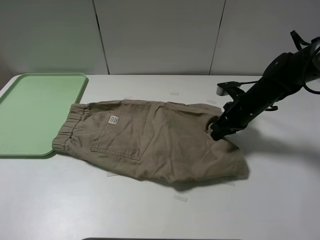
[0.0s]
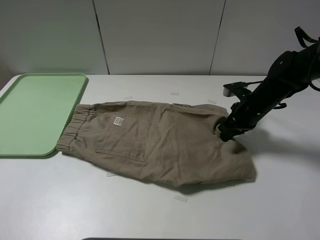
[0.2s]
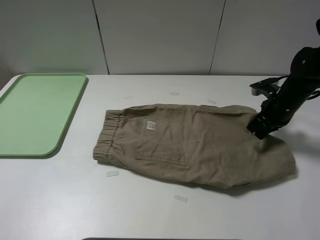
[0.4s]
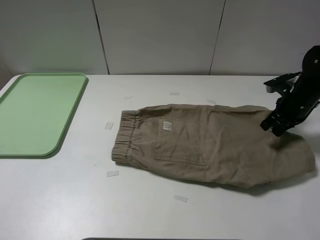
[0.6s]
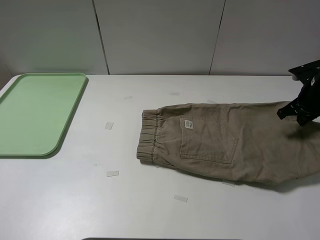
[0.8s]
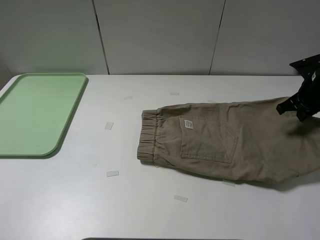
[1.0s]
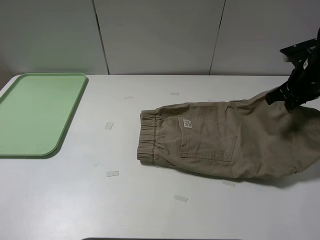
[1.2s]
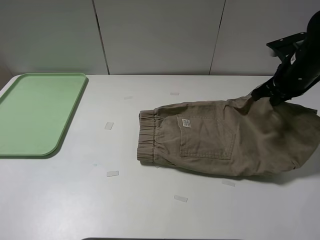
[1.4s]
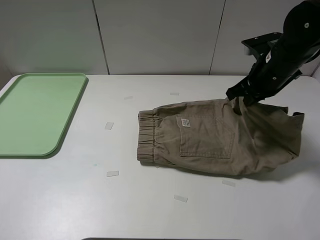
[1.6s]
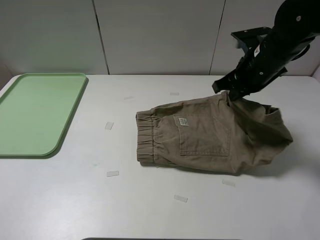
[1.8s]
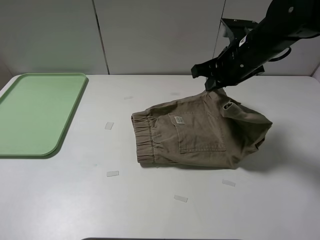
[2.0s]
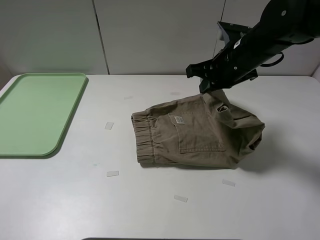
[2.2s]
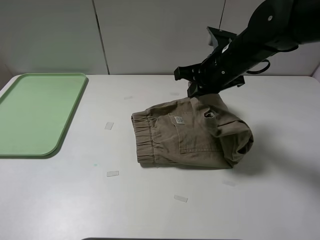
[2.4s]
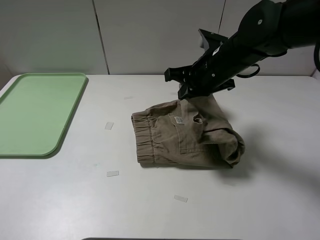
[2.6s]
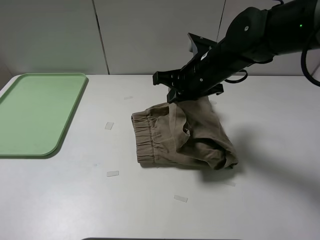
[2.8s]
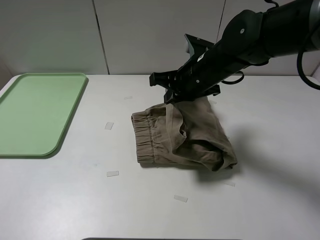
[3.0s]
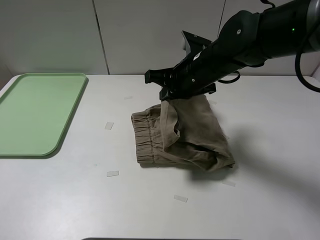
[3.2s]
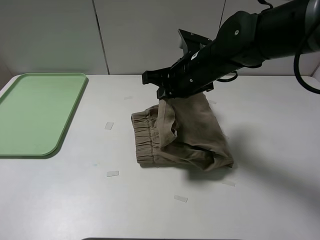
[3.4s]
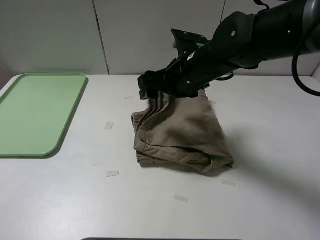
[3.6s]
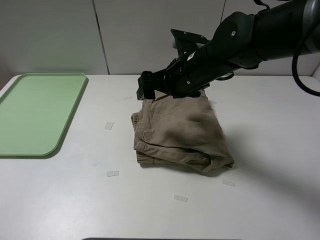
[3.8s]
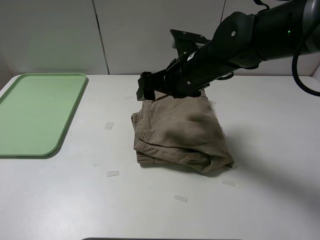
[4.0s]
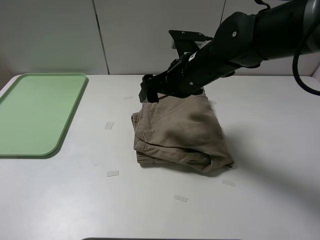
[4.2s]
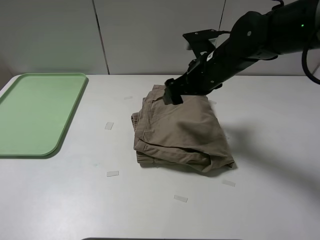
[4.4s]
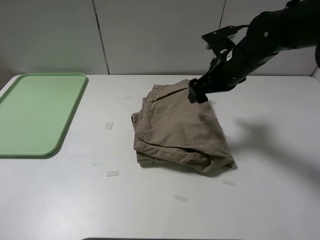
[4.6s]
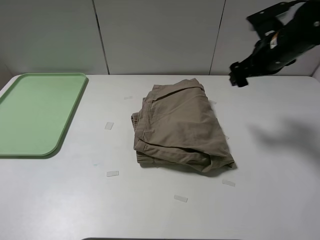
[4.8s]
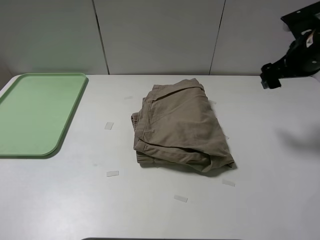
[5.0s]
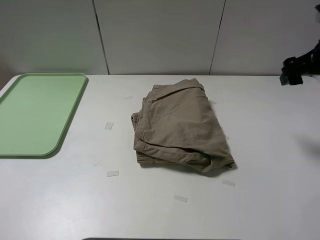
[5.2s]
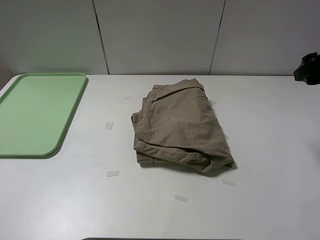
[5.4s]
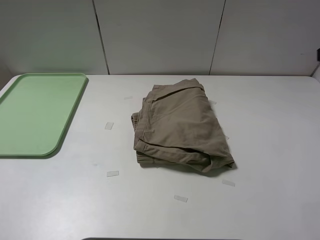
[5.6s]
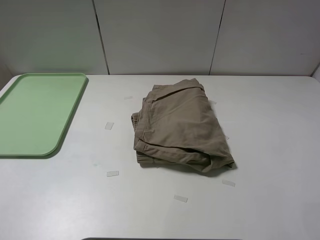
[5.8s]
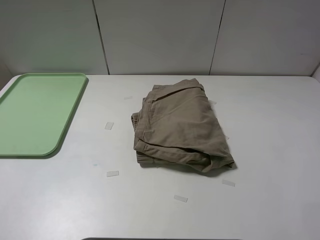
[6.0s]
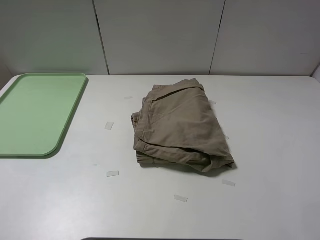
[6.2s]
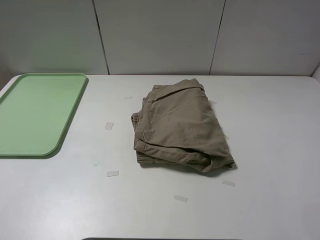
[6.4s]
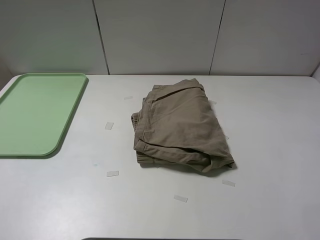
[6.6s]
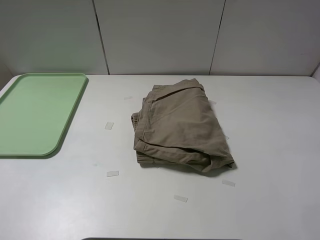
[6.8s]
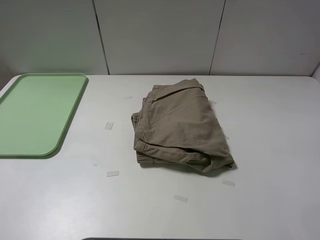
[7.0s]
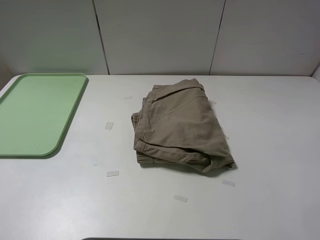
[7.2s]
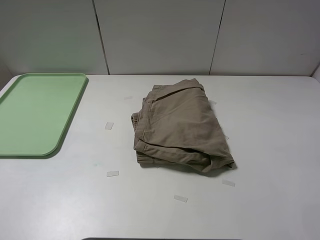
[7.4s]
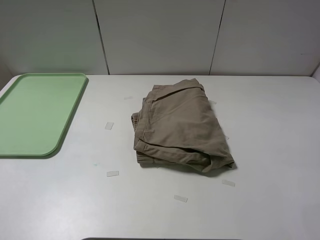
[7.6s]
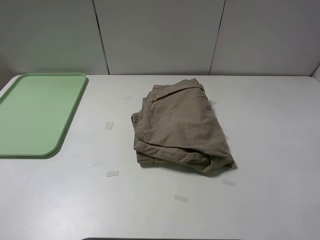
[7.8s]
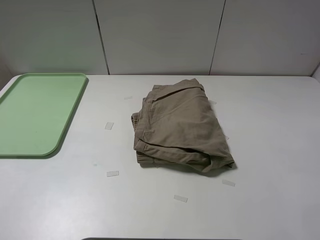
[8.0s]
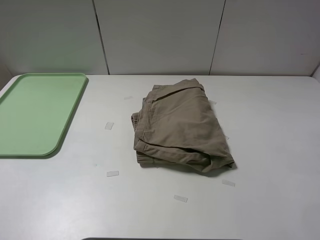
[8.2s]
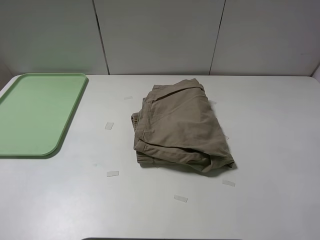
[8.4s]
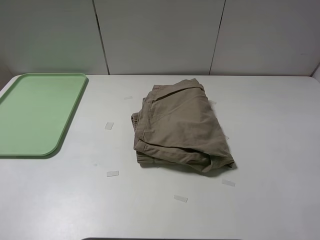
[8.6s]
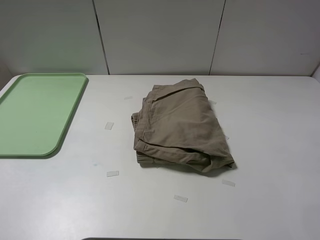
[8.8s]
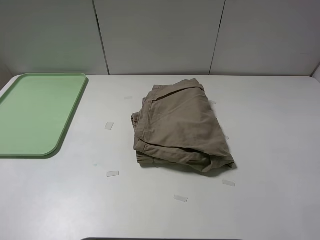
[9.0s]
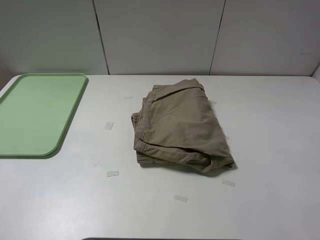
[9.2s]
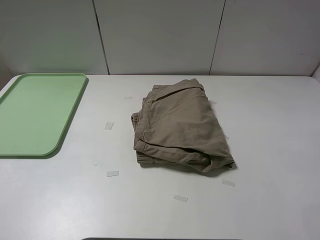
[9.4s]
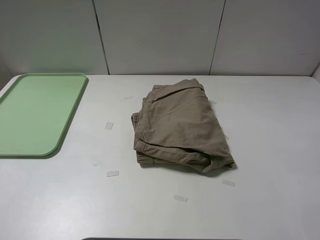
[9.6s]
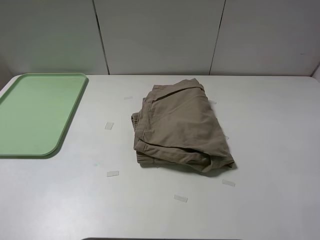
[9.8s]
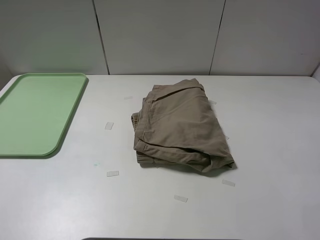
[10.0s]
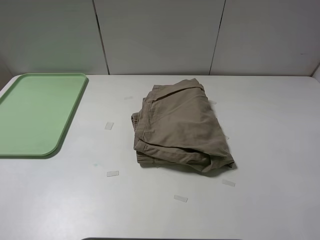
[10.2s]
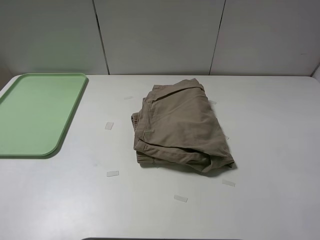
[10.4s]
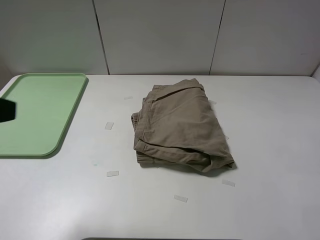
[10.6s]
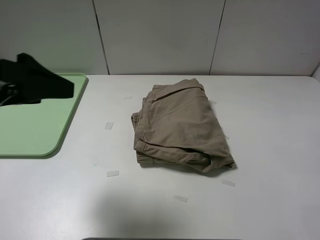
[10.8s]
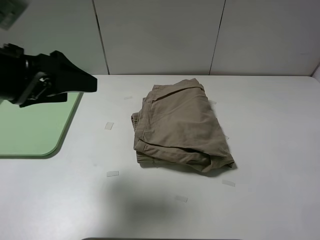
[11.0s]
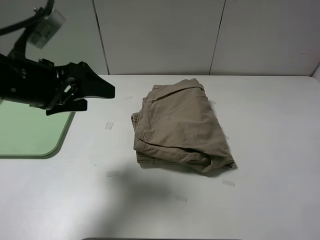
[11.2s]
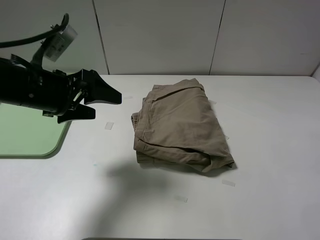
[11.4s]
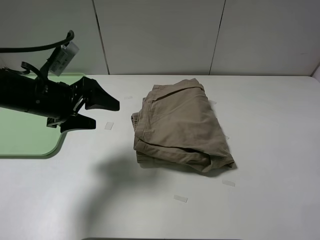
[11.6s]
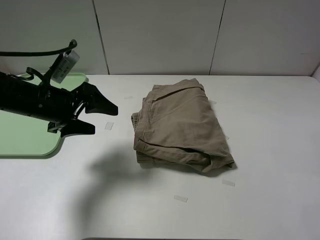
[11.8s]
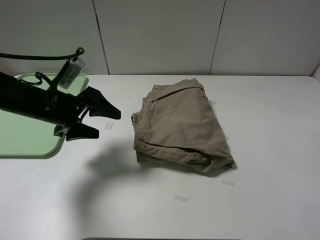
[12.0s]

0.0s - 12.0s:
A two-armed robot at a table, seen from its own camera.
Task of the whole recording: fold the khaki jeans in half with two grippers, then fold them in half again, and use the left claw to place the folded fold khaki jeans on the tray.
Step, 0.0s - 3.8s: Fold the khaki trousers from right to left with the right gripper.
0.0s - 1.6s: The right gripper is displaced upward by about 10 cm, and moves some 15 cm to the right and comes back.
1.6s - 3.0s: The right gripper heads to the left, covering approximately 15 cm.
3.0s - 4.4s: The right gripper opens up.
4.4s - 6.0s: The right gripper travels backward, to the right and upward by some 35 cm.
7.6s - 9.0s: Both grippers stay about where they are.
10.4s - 12.0s: The left gripper is displaced forward and downward by roughly 25 cm.

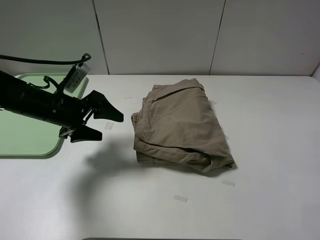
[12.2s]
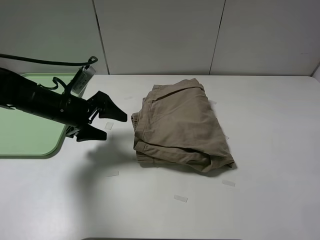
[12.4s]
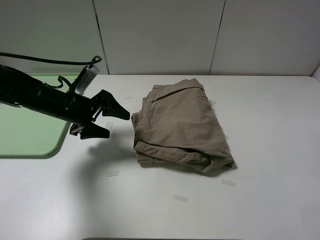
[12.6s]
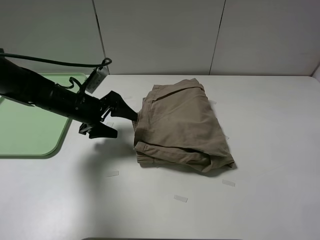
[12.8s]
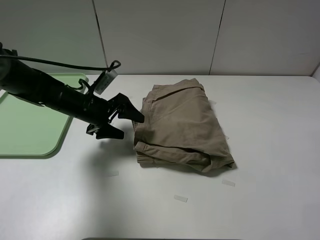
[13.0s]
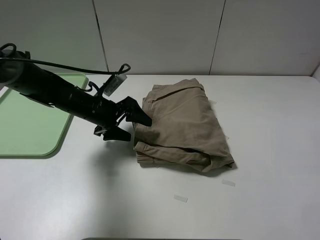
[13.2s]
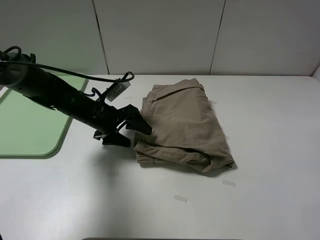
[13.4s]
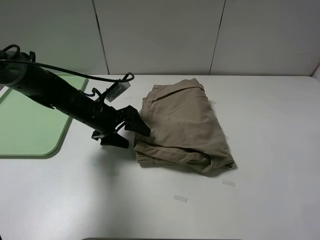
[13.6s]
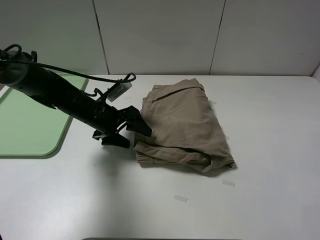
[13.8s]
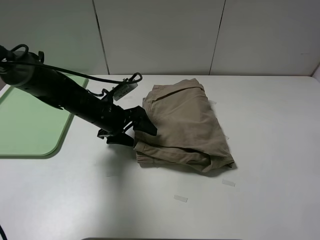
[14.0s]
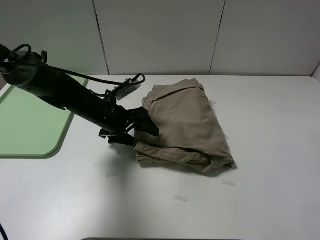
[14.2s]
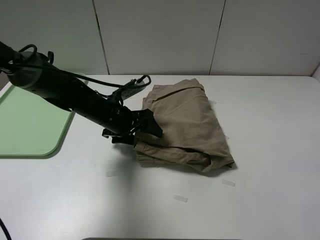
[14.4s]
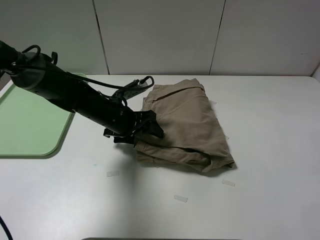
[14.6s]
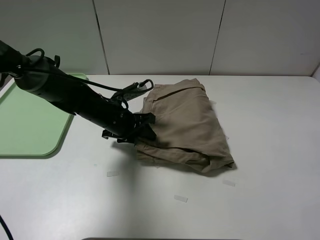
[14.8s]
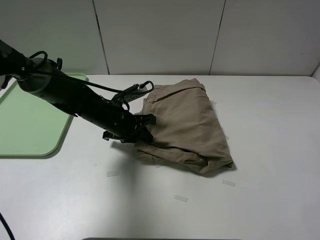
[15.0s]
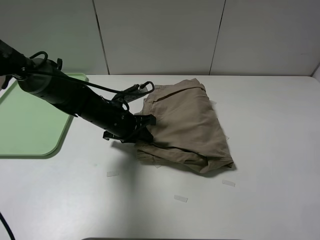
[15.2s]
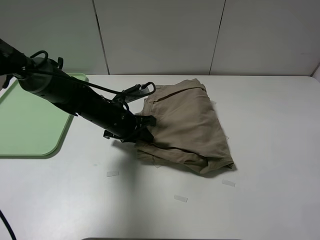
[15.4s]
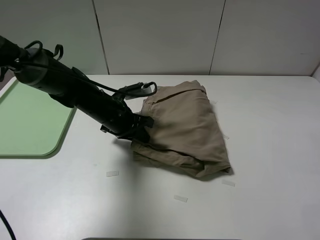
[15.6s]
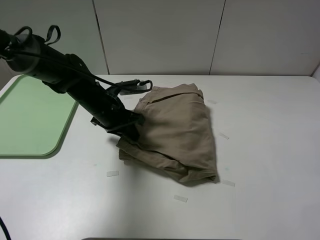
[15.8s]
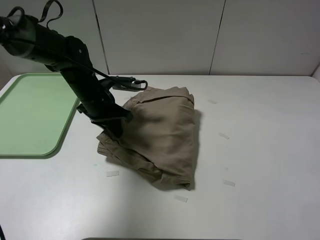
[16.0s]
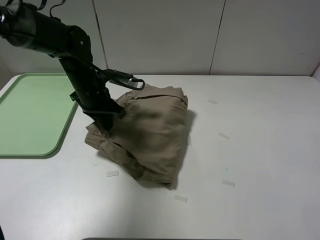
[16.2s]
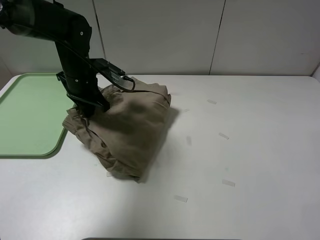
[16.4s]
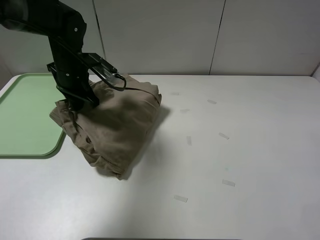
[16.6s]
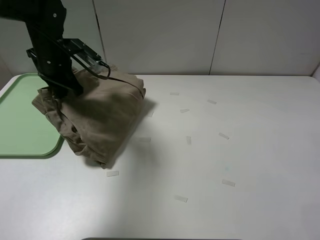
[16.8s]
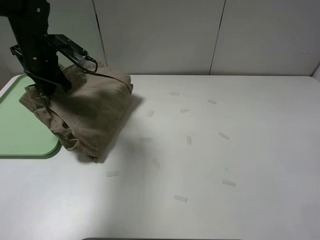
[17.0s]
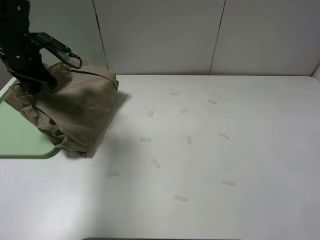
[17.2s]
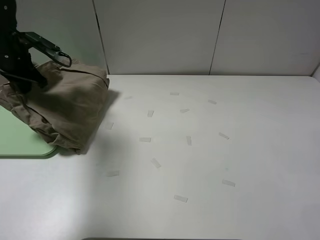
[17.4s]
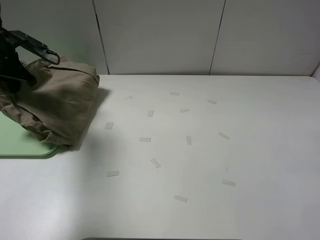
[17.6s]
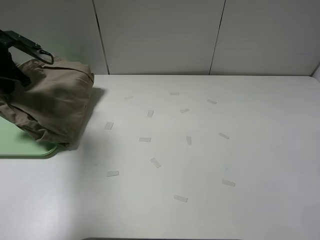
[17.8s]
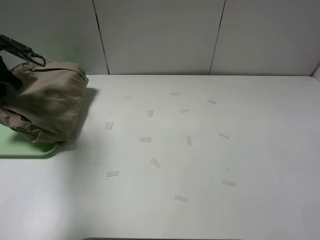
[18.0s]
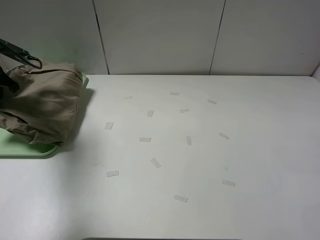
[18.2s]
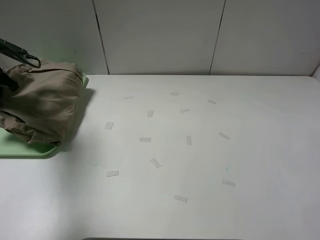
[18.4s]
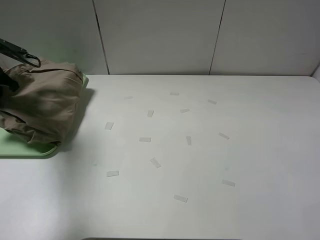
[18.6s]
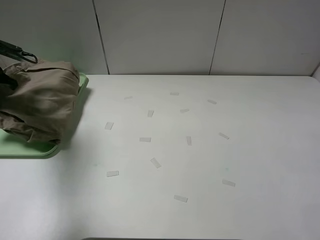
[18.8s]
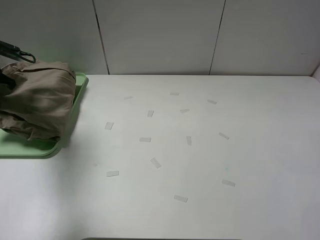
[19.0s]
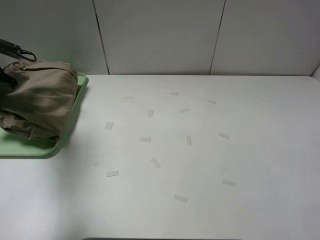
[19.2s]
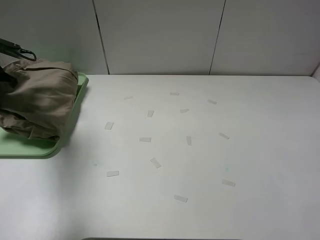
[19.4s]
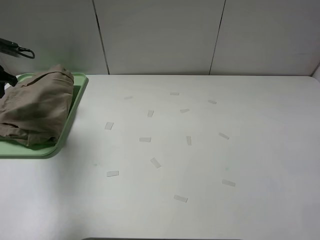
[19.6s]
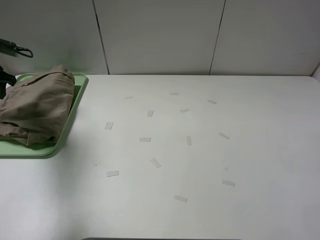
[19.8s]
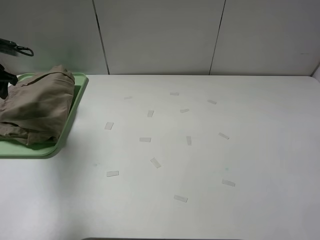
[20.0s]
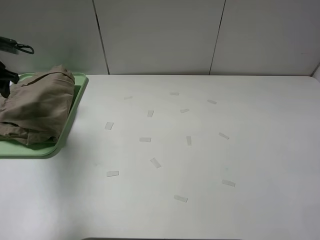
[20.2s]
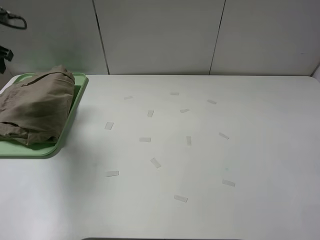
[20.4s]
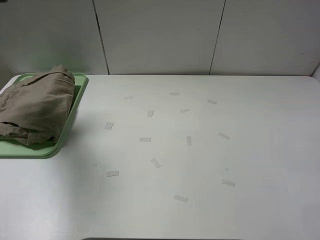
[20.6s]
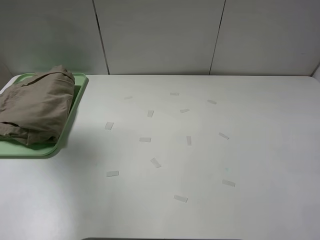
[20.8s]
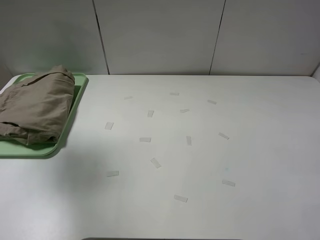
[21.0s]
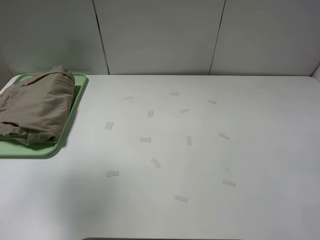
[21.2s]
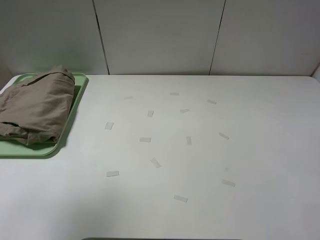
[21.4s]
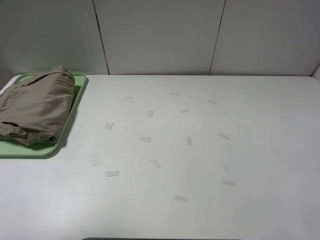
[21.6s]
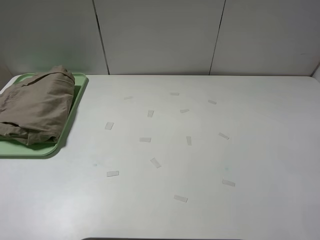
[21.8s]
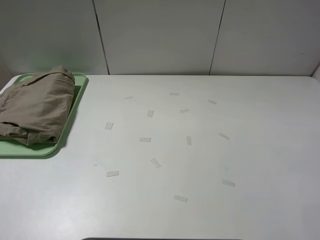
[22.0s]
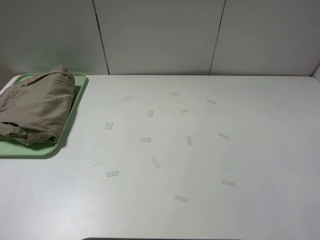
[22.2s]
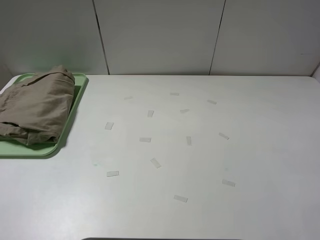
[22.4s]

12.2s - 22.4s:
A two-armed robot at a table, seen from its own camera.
Task of the whole recording: fold the khaki jeans in half with two grippers, then fold them in half again, and use the left claw to place the folded fold khaki jeans on the tray.
Step, 12.2s - 15.2s: Grasp the khaki trousers with the left gripper.
Step, 15.4s - 19.8s: Place the folded khaki trousers on the green tray with the left gripper.
12.2s - 13.6s: The left gripper heads to the right, covering approximately 5 cm.
13.6s - 15.2s: The left gripper closes up.
15.2s - 16.6s: The left gripper goes approximately 15 cm upward, forward and to the left.
16.6s - 18.0s: The left gripper moves to the left, some 20 cm.
18.0s - 19.4s: The grippers move only a little.
19.4s - 21.0s: The left gripper goes about 25 cm upward and backward, and opens up.
21.0s - 22.4s: The left gripper travels backward by some 25 cm.
